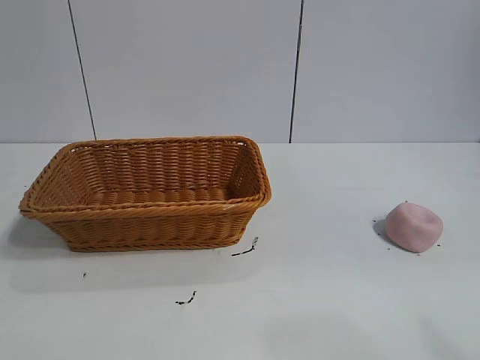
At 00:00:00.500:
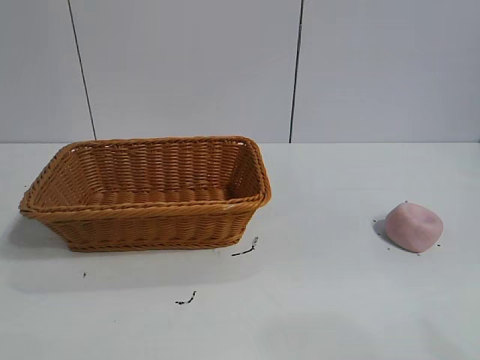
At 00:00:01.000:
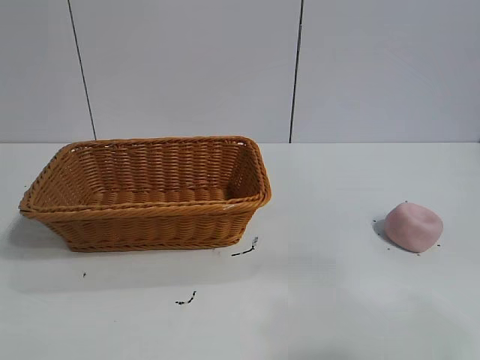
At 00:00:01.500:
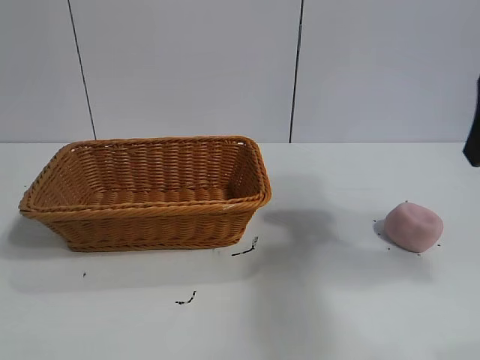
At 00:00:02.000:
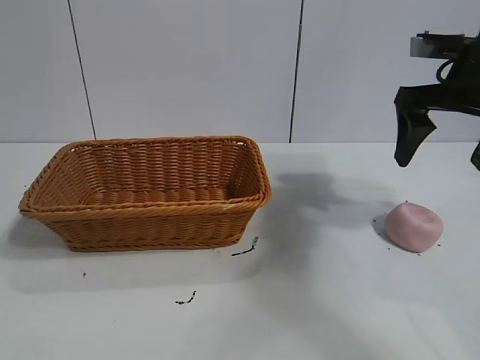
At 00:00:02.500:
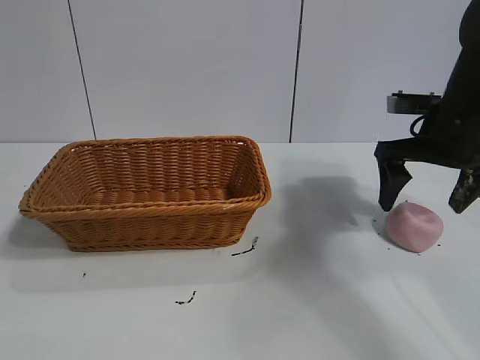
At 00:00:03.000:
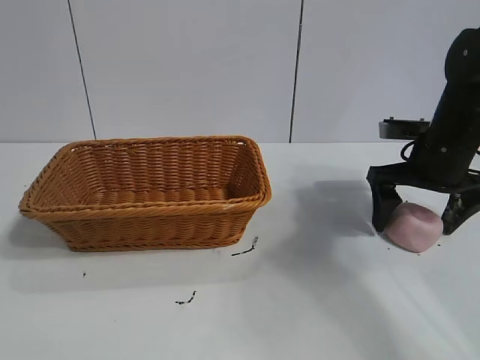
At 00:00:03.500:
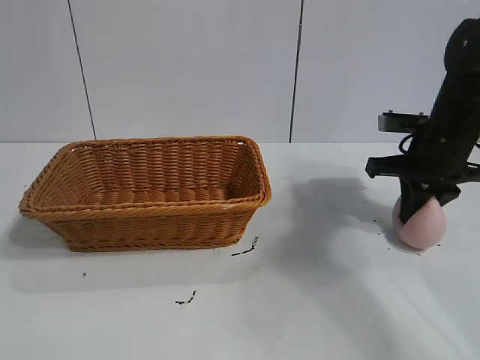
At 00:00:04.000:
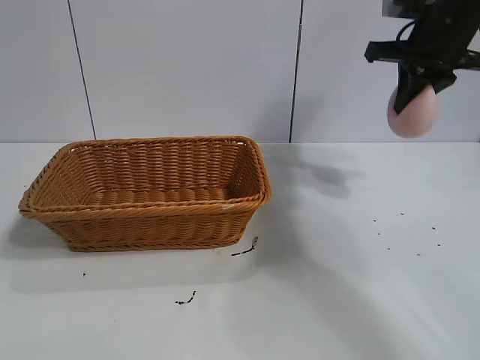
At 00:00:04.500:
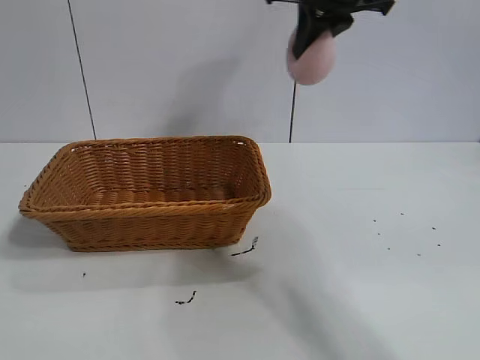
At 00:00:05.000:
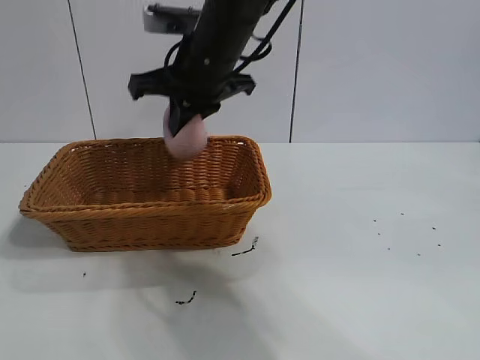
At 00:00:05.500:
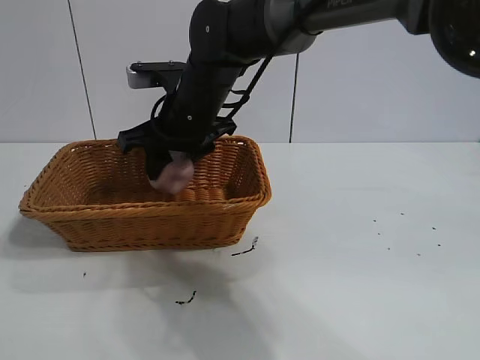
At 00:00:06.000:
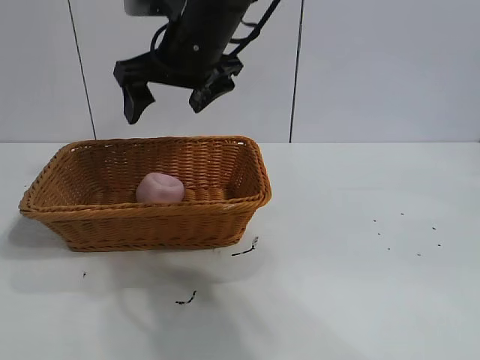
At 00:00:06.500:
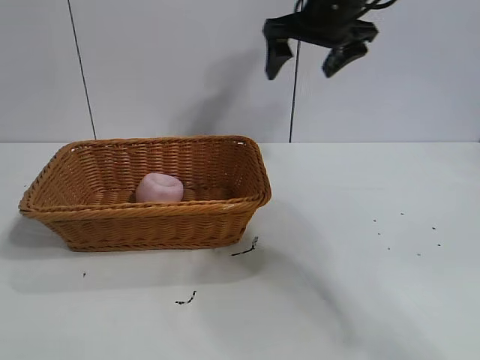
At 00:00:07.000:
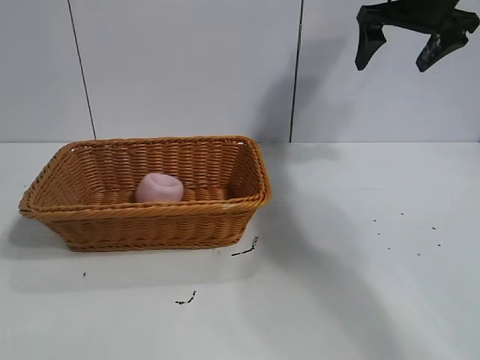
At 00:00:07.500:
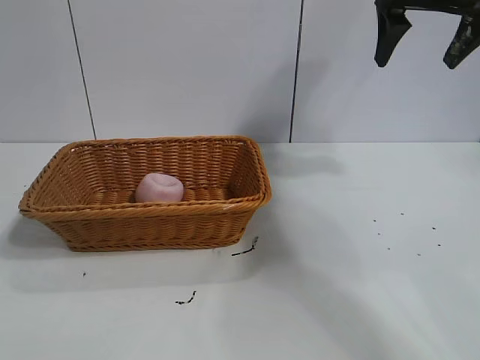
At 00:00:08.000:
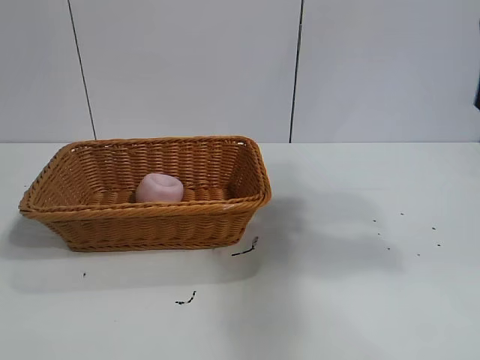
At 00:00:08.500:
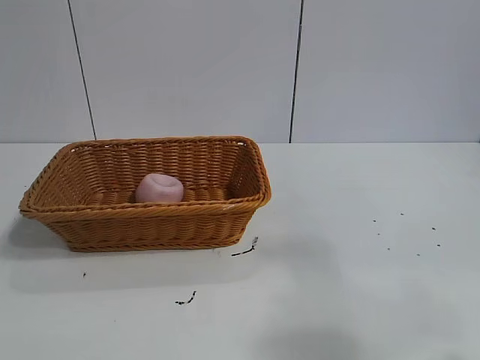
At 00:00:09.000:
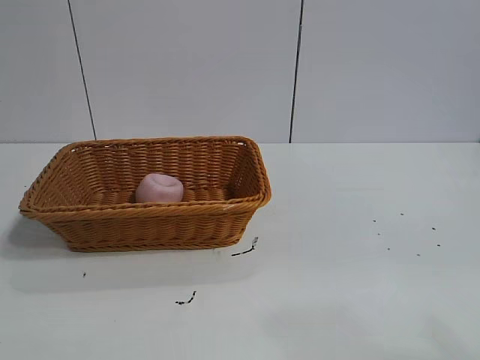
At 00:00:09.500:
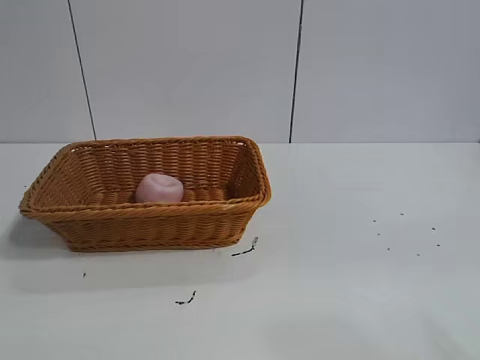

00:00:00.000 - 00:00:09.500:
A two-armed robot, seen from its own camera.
Task of the whole recording: pick up the peach and put it into the basket.
Step, 00:00:01.000 - 00:00:03.000: Grasp the peach with right gripper.
Step, 00:00:03.500 - 00:00:05.500: Place the peach in the basket with right gripper.

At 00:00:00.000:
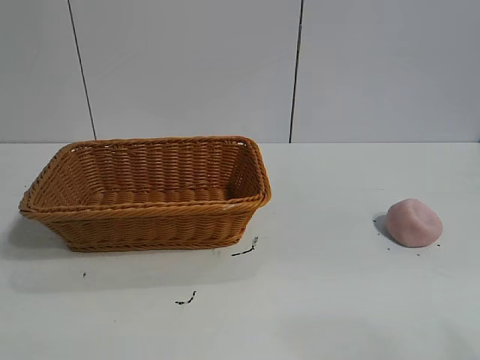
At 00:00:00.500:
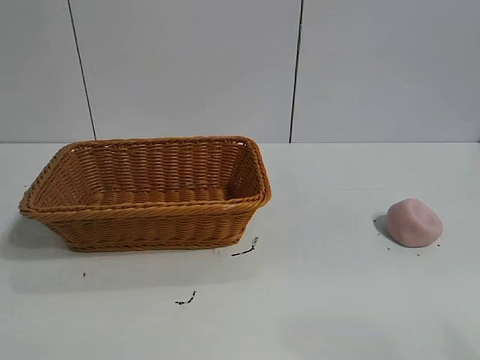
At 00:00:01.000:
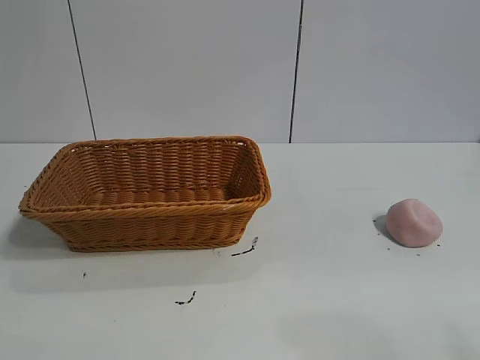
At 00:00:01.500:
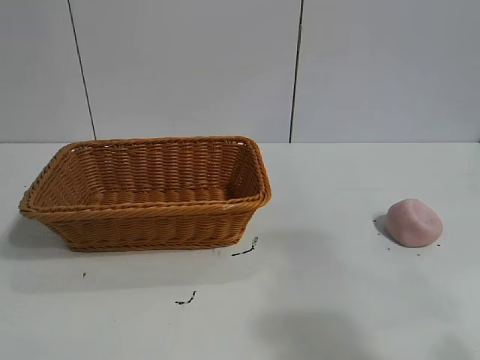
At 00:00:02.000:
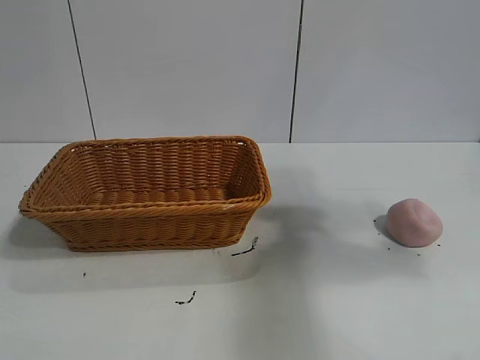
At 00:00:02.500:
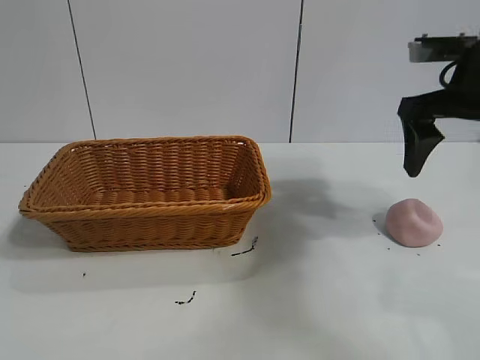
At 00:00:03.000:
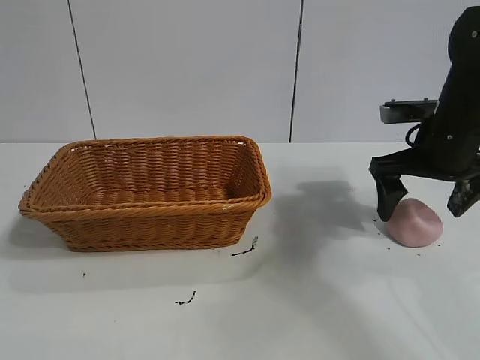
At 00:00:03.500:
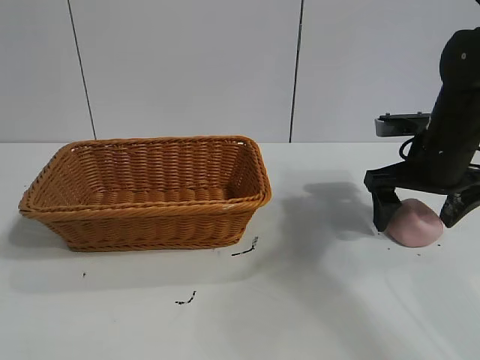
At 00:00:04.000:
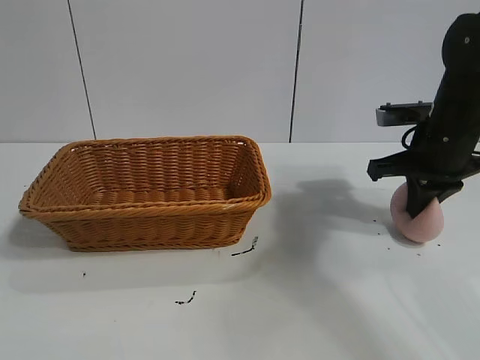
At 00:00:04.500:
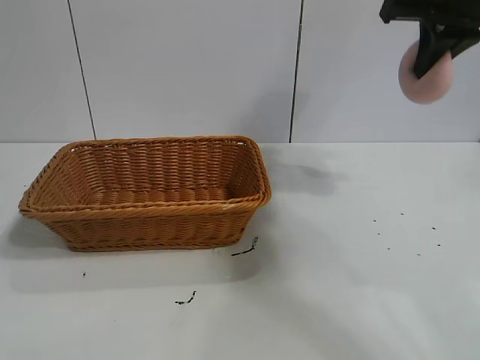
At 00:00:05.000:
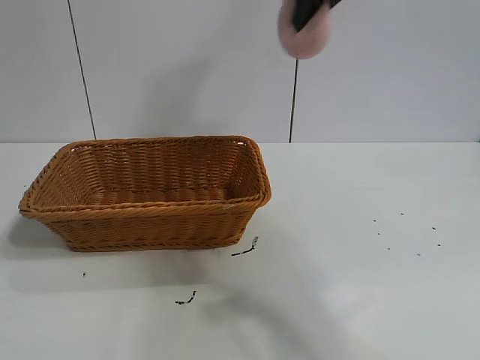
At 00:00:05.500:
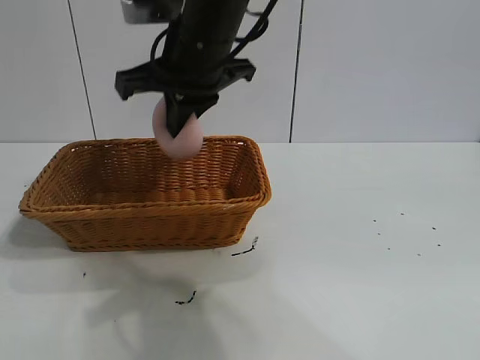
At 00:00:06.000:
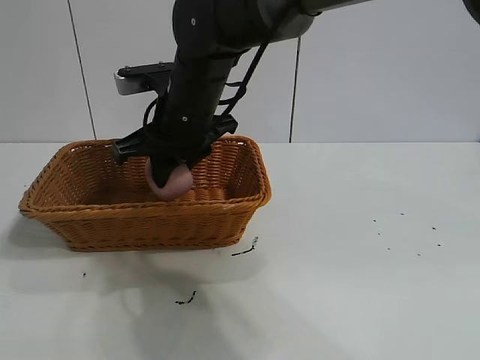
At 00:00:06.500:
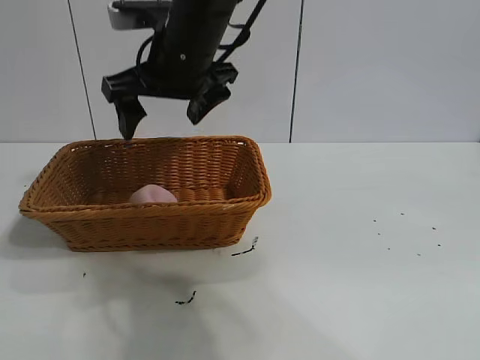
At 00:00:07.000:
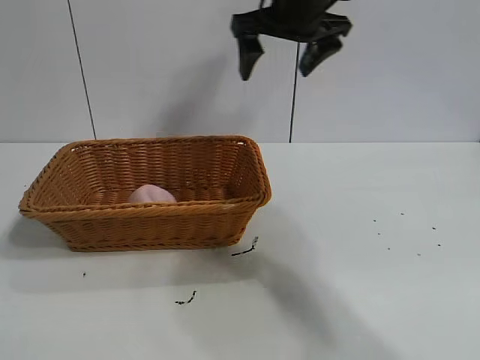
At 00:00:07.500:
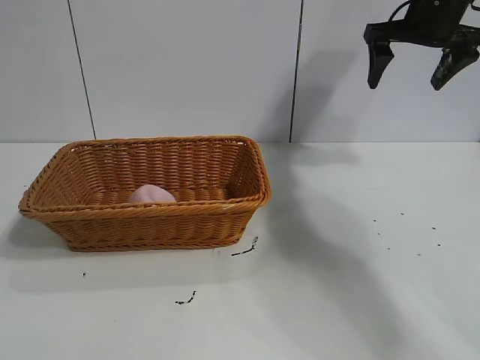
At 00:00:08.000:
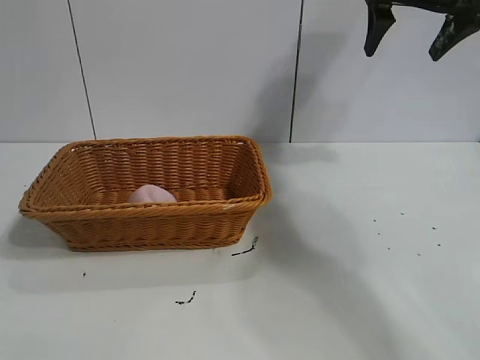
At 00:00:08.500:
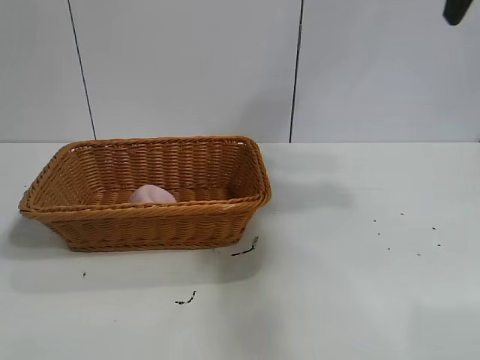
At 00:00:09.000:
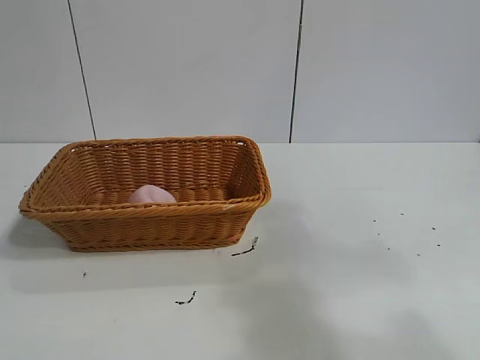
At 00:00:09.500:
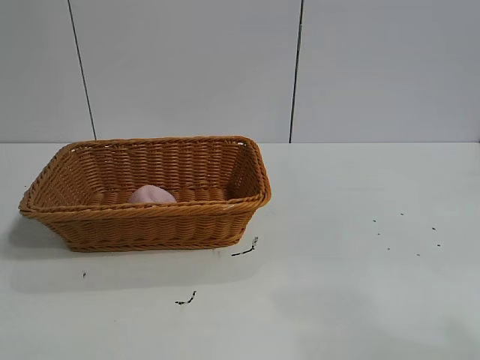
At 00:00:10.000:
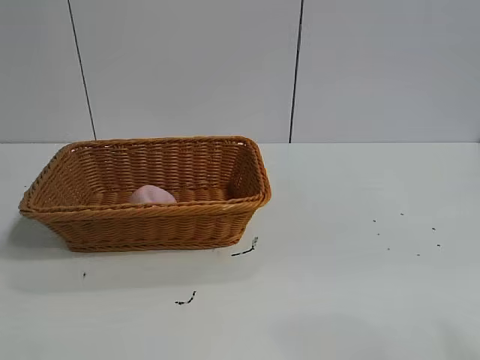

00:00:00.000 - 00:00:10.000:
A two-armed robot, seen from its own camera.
Task of the whole recording: pick up the peach and put it into the basket.
Step, 00:00:01.000 - 00:00:03.500: Grasp the peach with right gripper.
Step, 00:00:04.000 - 00:00:06.000: Place the peach in the basket with right gripper.

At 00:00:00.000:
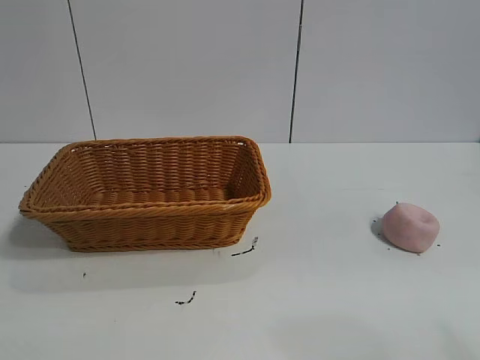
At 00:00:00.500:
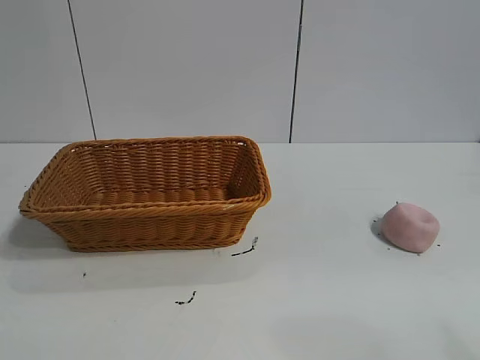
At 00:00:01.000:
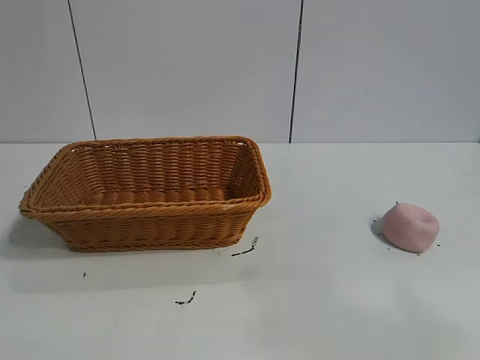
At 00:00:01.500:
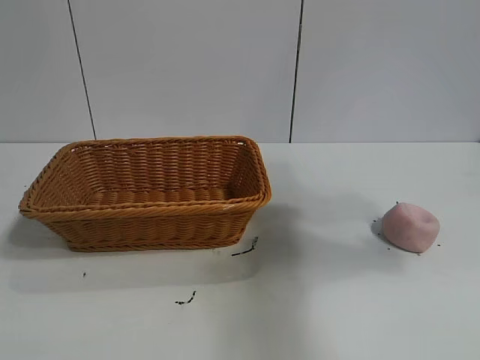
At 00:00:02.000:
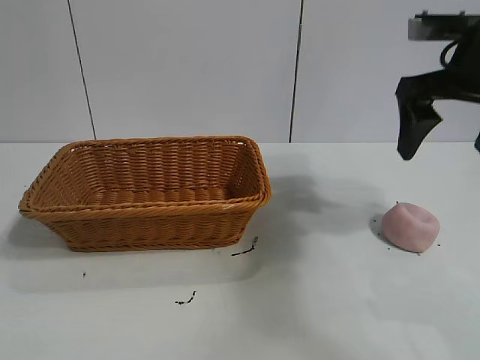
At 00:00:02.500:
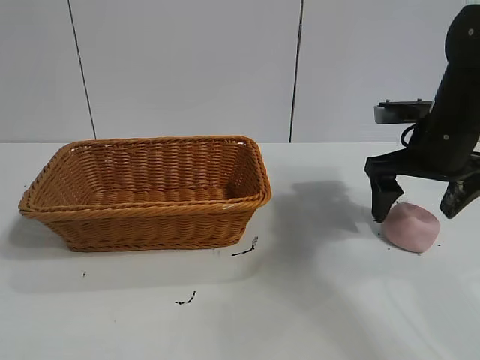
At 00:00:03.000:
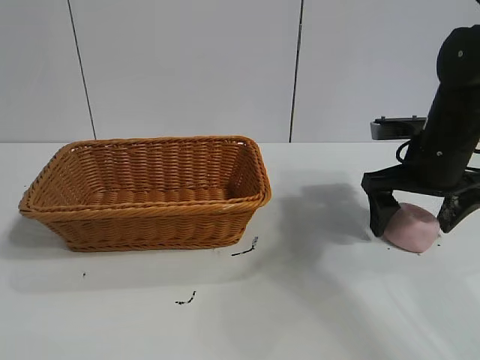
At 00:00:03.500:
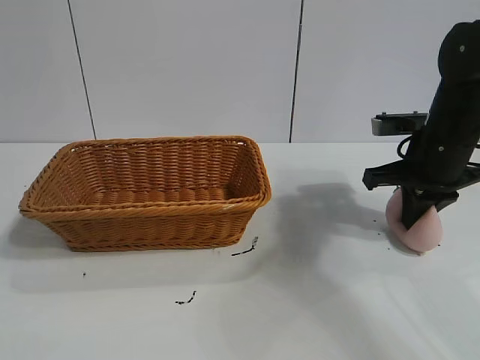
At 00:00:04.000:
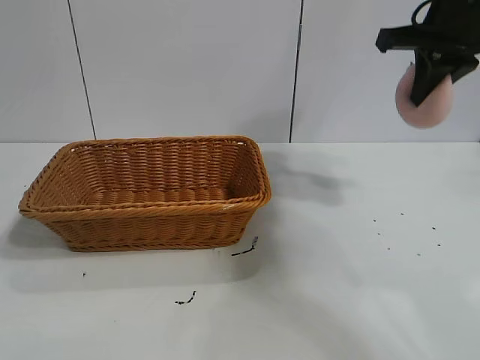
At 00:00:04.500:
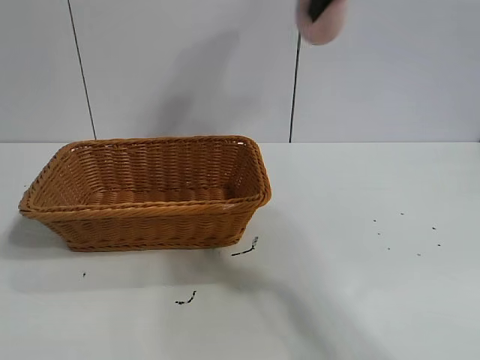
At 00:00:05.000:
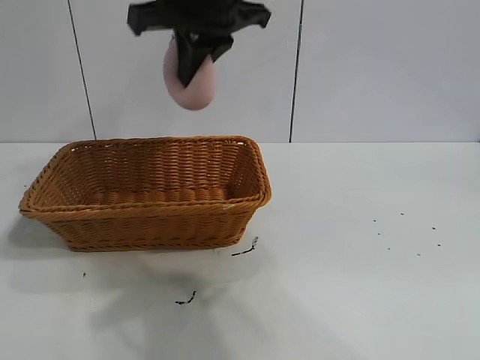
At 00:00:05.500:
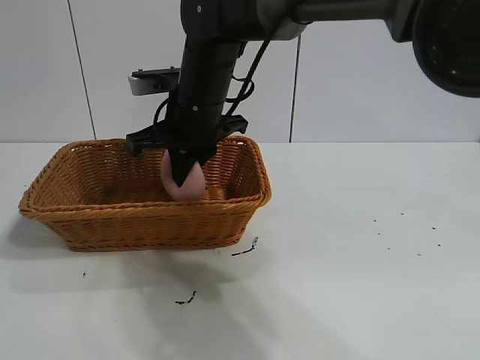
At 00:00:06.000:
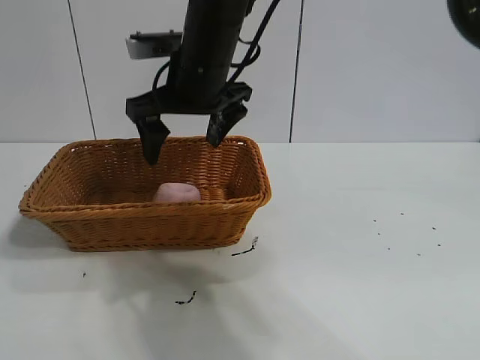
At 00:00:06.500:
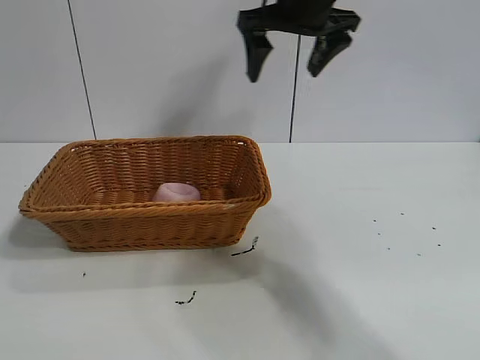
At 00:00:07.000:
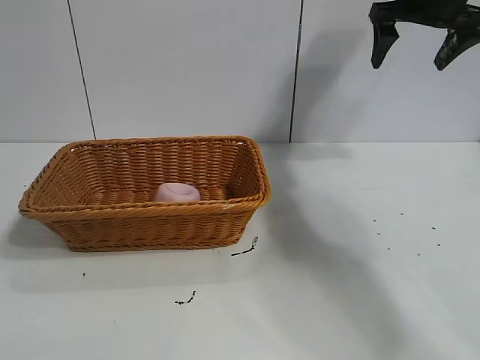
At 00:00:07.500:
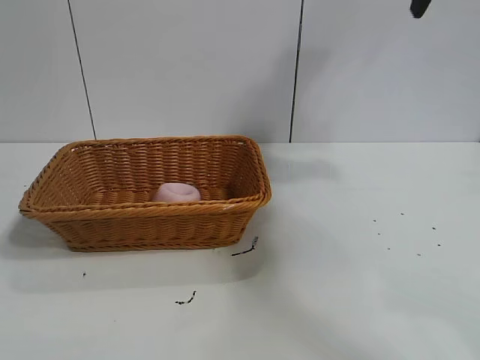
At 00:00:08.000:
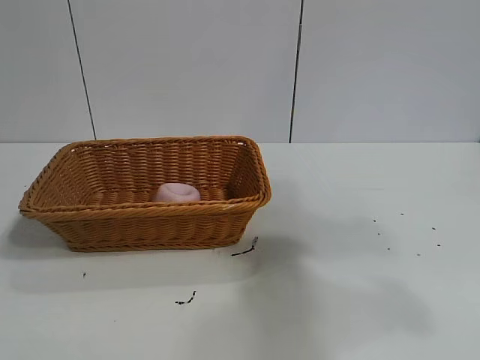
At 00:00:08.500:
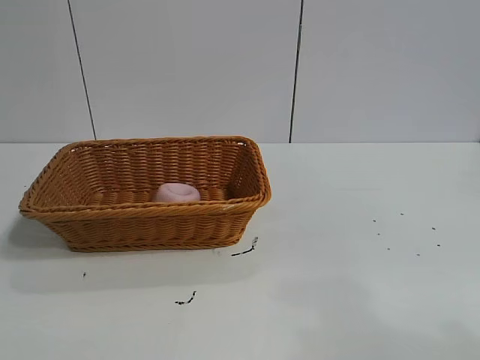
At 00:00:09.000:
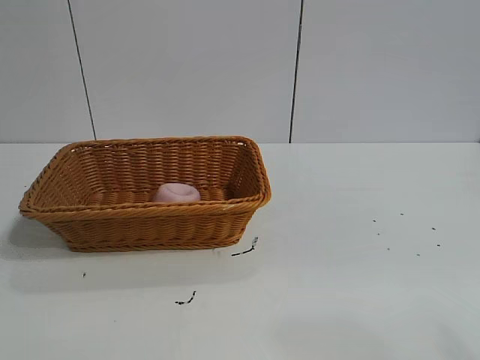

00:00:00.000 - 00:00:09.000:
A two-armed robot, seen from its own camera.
Task of the whole recording: pick up the peach and put it into the basket.
Step, 00:00:01.000 - 00:00:03.000: Grasp the peach with right gripper.
Step, 00:00:03.500 - 00:00:05.500: Place the peach in the basket with right gripper.
